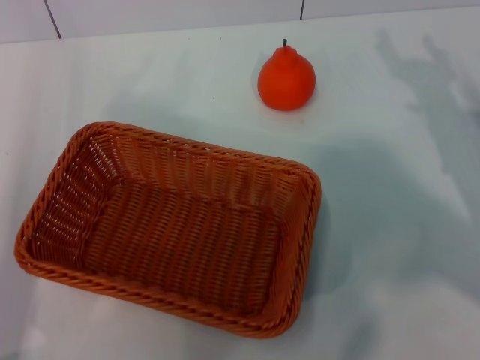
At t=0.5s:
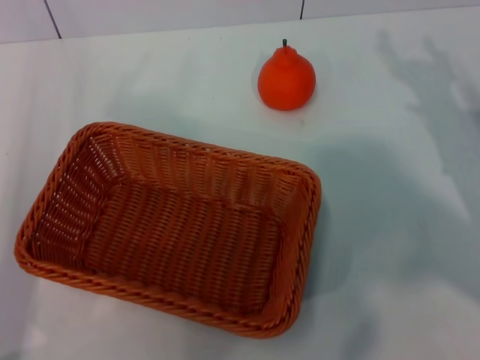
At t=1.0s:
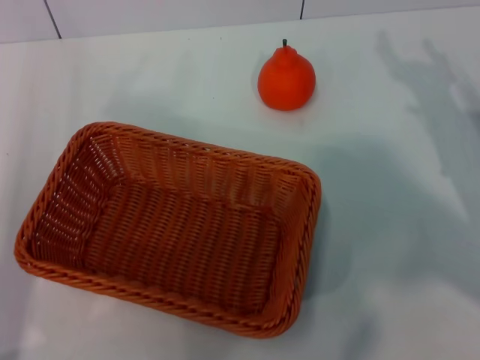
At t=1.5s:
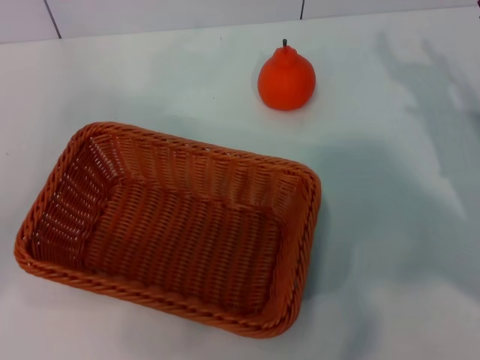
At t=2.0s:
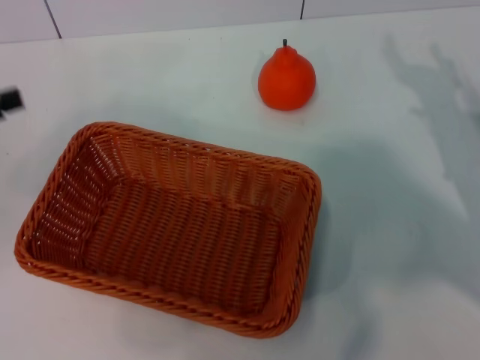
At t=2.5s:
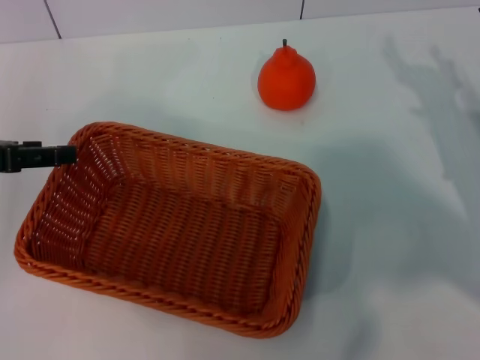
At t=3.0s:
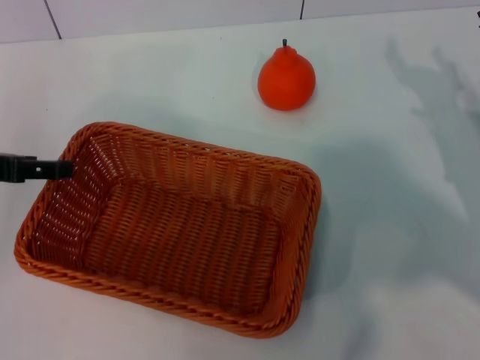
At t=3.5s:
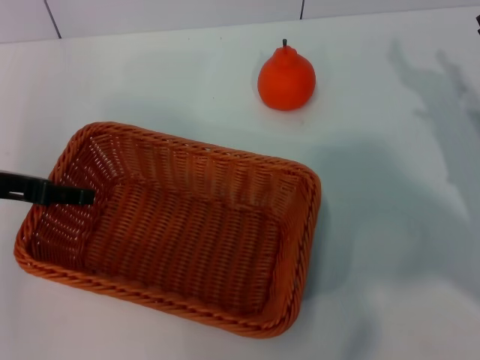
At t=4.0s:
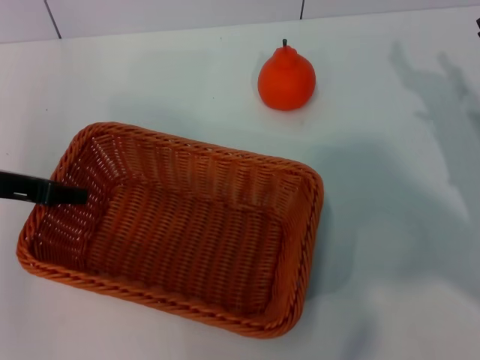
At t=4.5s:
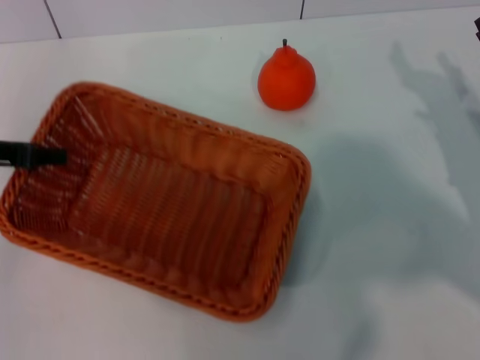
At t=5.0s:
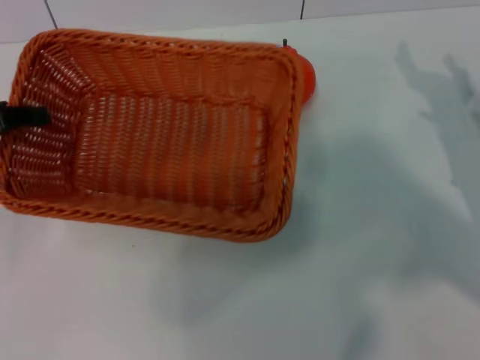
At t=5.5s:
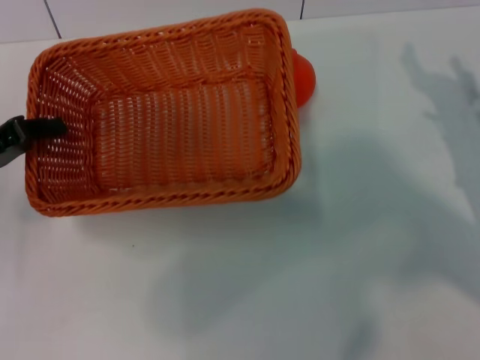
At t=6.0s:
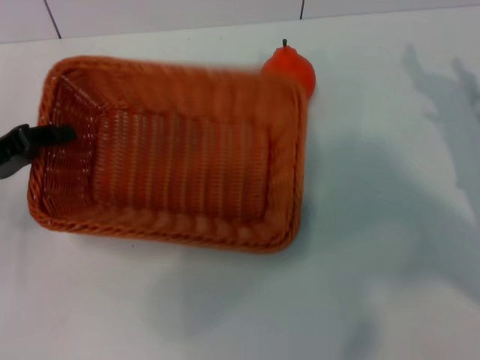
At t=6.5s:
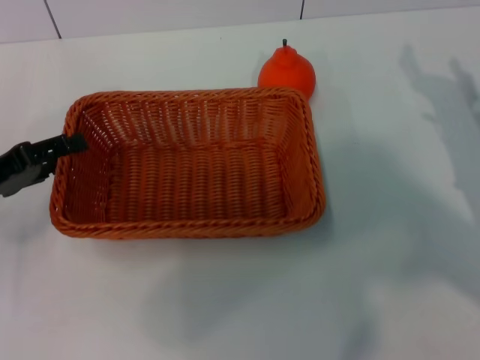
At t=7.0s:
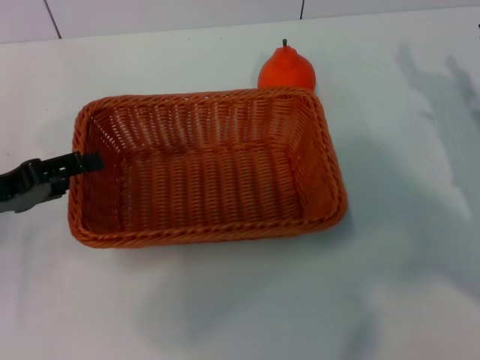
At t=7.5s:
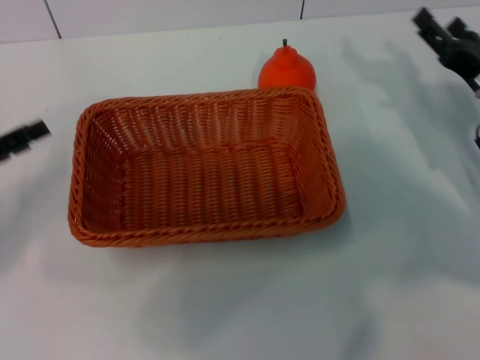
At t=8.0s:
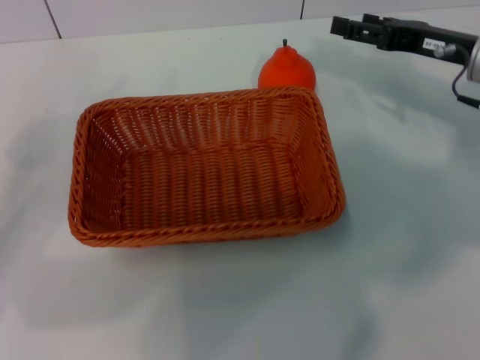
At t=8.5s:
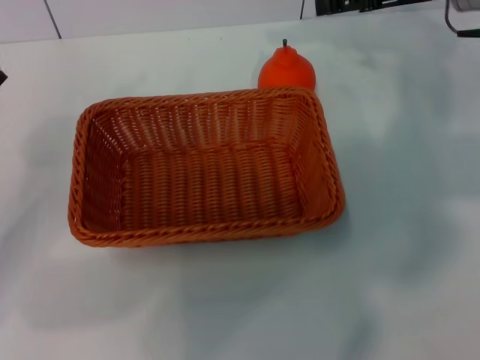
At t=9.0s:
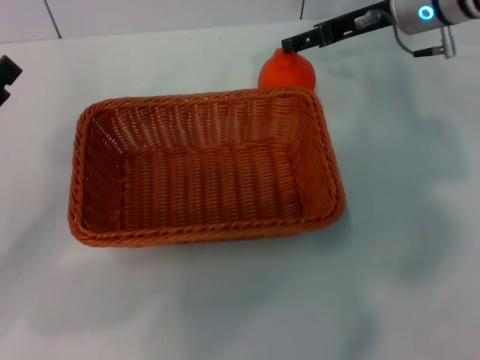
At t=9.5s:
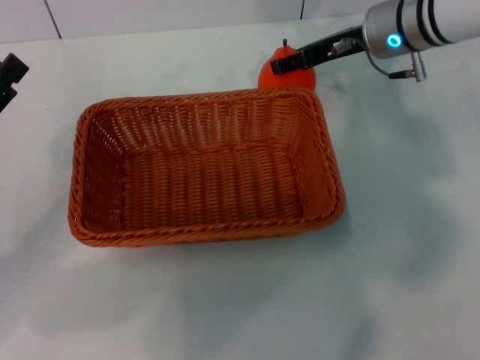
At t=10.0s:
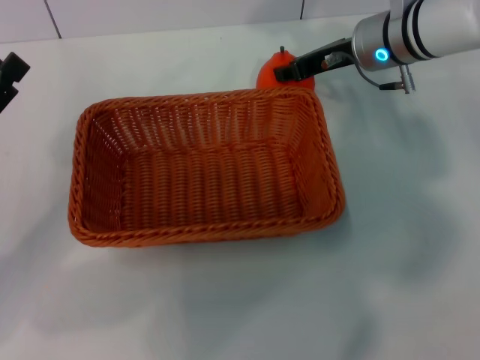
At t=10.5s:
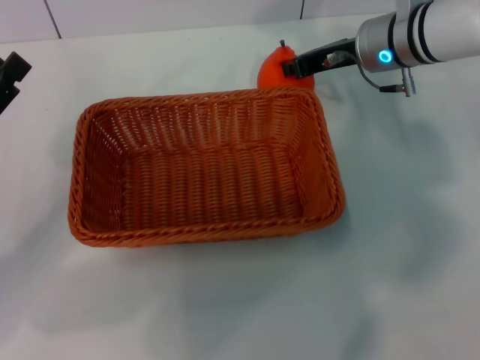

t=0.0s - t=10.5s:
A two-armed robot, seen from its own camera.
Task of the whole recording: the left gripper pick up the yellow basket and place it horizontally in the middle of the table, the right gripper pick up the orange and place it into the yellow basket.
Step, t=0.0s - t=4.5s: Pick up the light basket with the left gripper.
Step, t=5.0s - t=7.0s: Place the light basket in the center of view with the left gripper.
t=0.0s - t=2.0s: The left gripper goes some 15 cm upward, to the left and forward.
t=2.0s - t=4.0s: The left gripper is displaced to the right by some 5 cm.
t=4.0s - t=6.5s: The left gripper ends up approximately 5 cm from where it was, and closes and opens again.
t=6.5s - t=8.5s: The right gripper is displaced upward, forward and to the left by roughly 20 cm.
t=8.5s - t=10.5s: The right gripper travels to the left and downward by approximately 10 cm, and closes its fingers.

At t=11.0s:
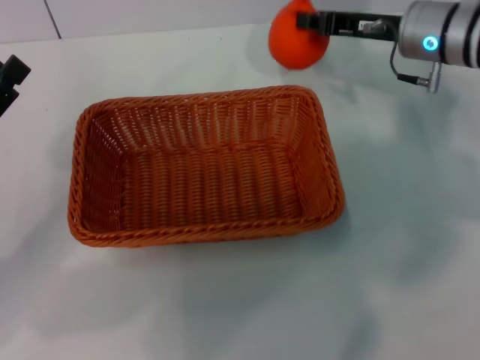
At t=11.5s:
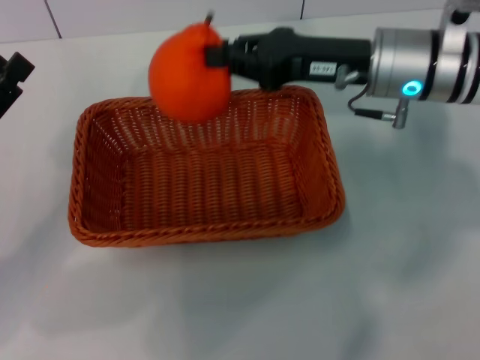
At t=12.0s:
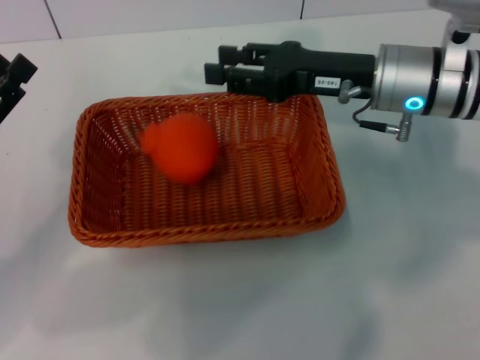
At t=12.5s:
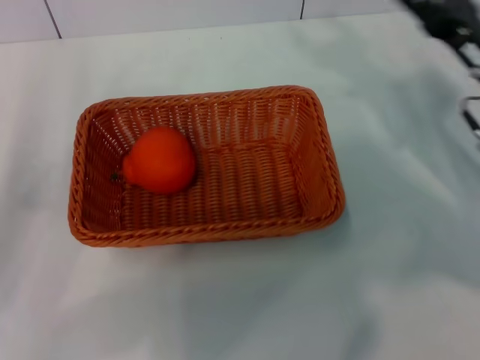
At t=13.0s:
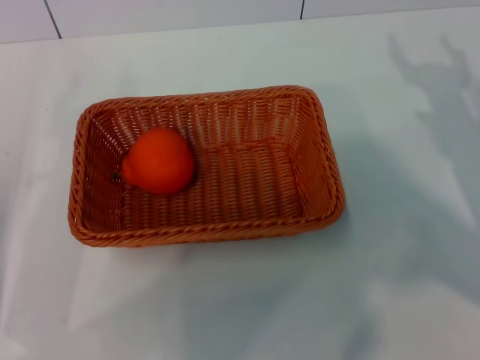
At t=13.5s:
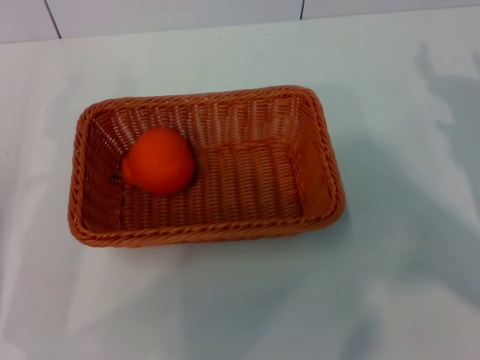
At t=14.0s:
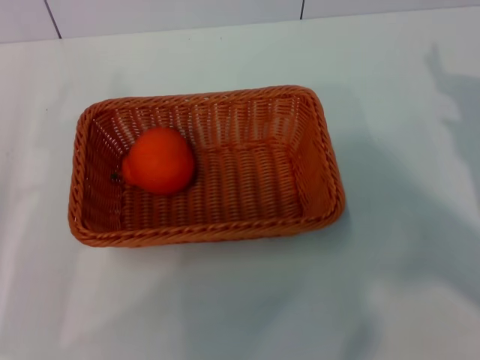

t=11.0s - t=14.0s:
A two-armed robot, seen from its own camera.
Task of the whole recording: the left gripper pick up the yellow basket and place it horizontally in the middle of the table, the right gripper pick up the orange and place it into the yellow basket.
Step, t=11.5s - t=12.0s: Place the orange into the light basket with the right gripper.
t=11.0s - t=12.5s: The right gripper is displaced backward and to the right by some 10 cm, and opens its fingers.
t=12.5s - t=14.0s: The right gripper is displaced to the right and backward by some 5 cm.
